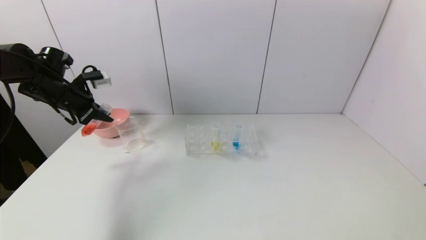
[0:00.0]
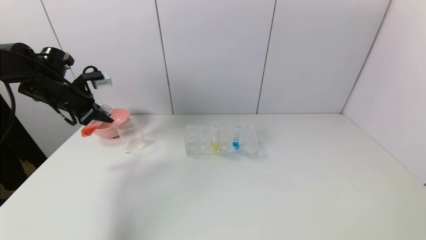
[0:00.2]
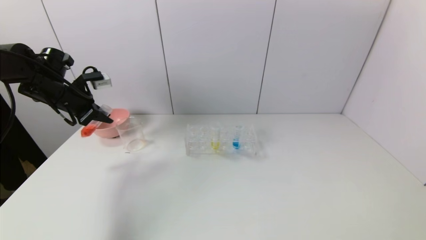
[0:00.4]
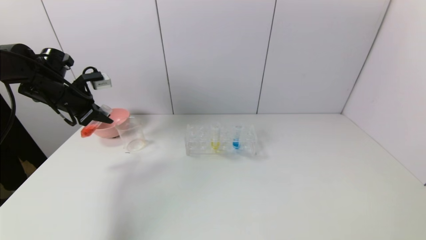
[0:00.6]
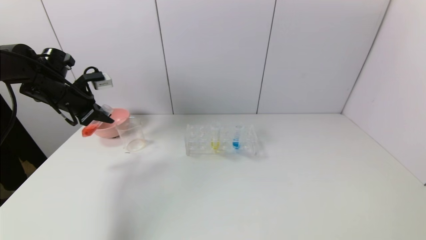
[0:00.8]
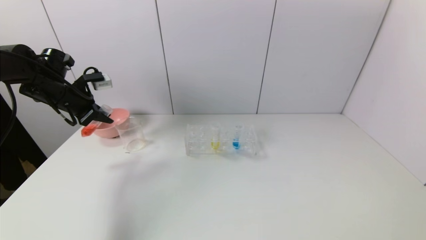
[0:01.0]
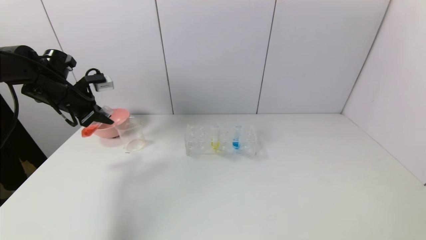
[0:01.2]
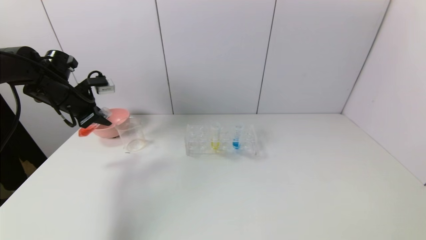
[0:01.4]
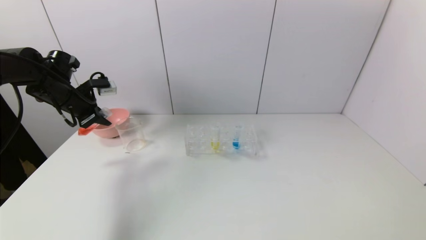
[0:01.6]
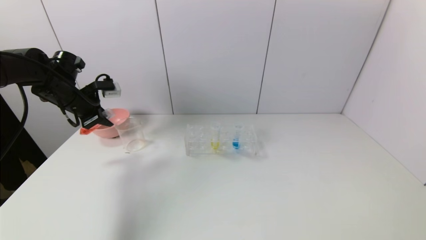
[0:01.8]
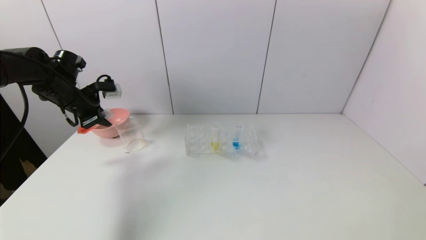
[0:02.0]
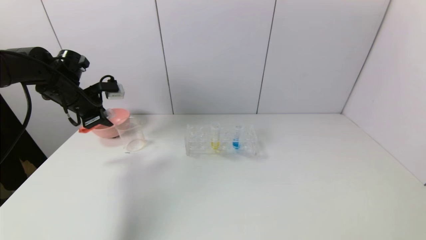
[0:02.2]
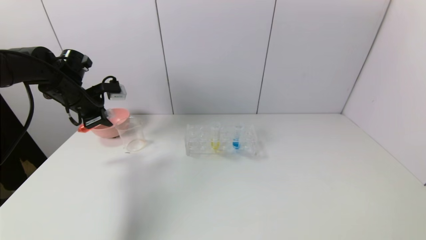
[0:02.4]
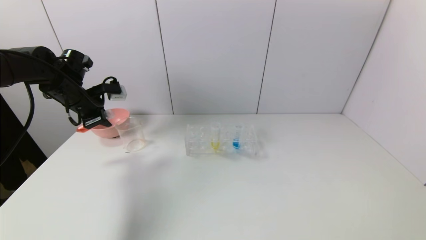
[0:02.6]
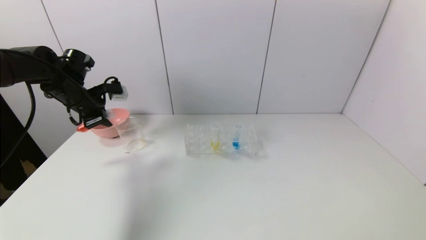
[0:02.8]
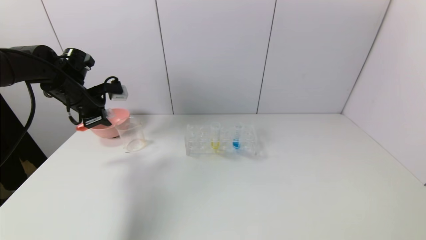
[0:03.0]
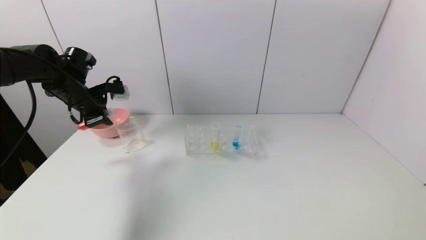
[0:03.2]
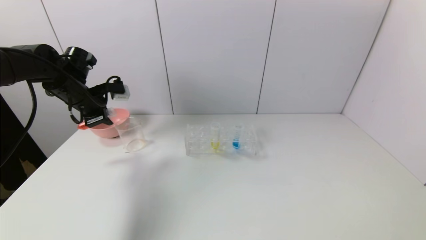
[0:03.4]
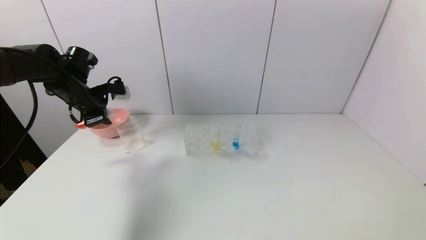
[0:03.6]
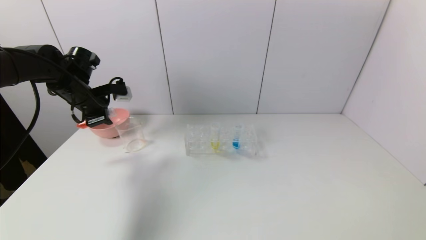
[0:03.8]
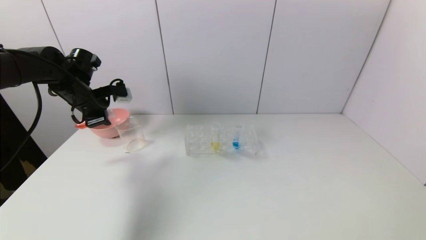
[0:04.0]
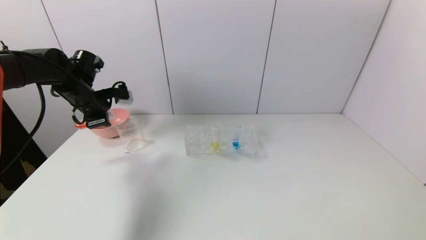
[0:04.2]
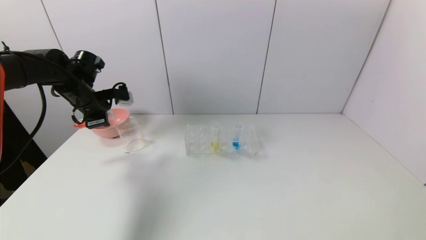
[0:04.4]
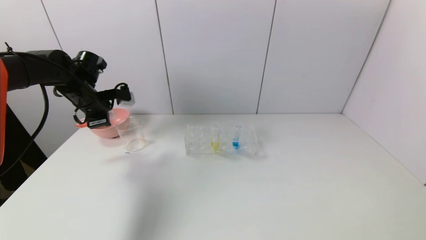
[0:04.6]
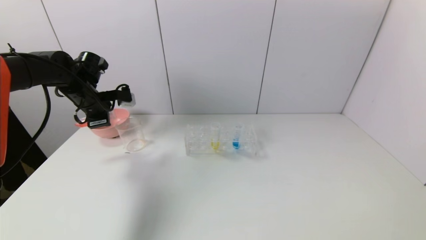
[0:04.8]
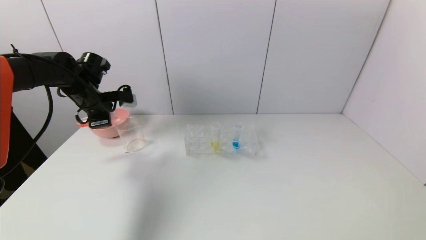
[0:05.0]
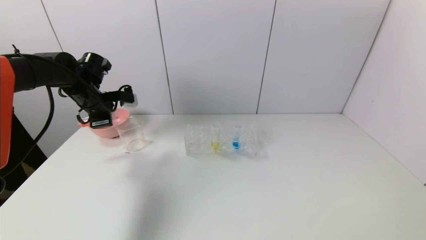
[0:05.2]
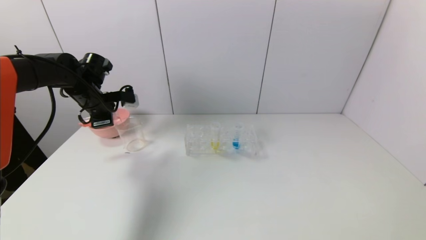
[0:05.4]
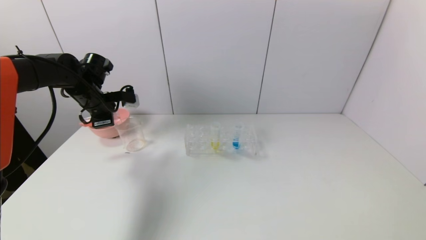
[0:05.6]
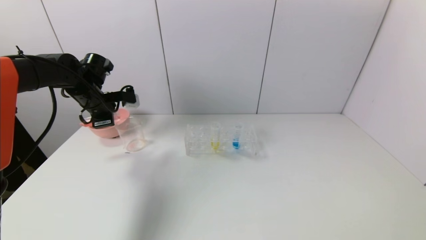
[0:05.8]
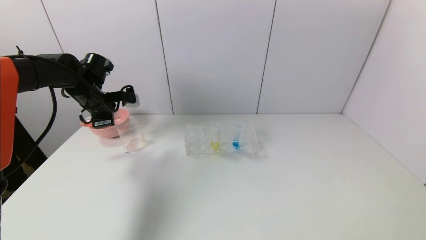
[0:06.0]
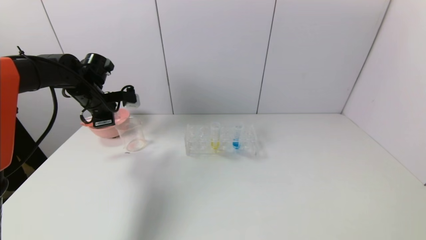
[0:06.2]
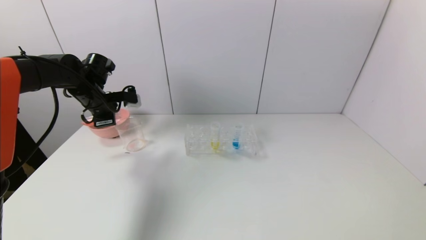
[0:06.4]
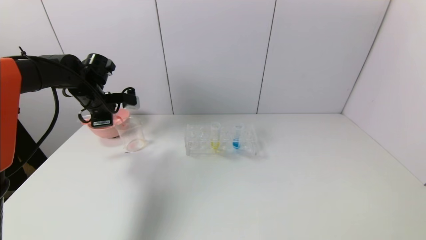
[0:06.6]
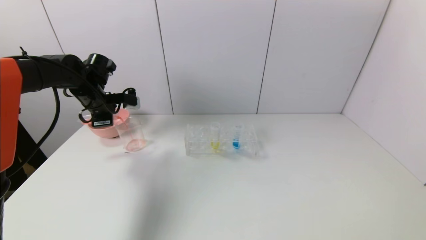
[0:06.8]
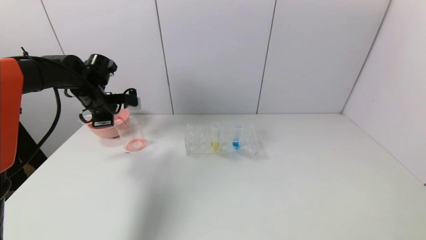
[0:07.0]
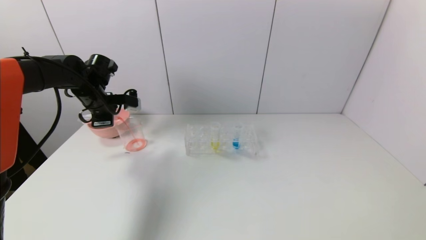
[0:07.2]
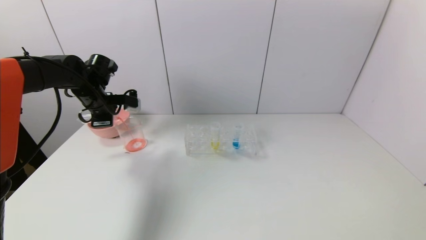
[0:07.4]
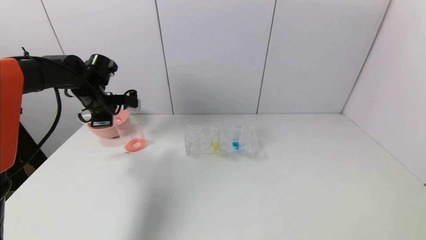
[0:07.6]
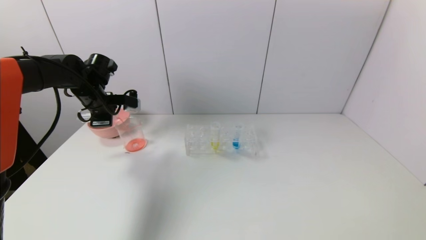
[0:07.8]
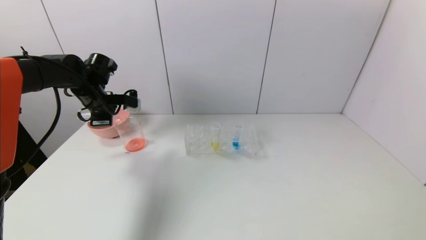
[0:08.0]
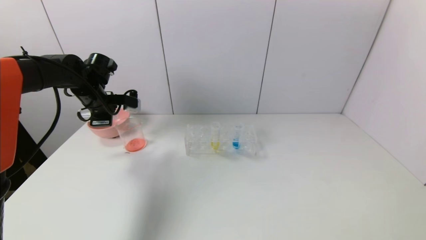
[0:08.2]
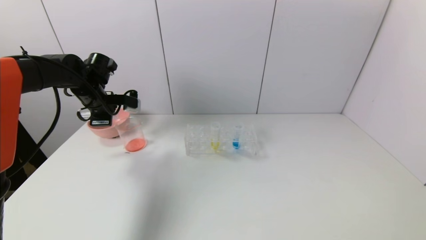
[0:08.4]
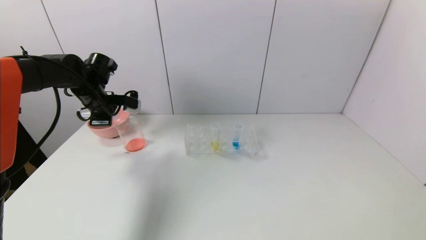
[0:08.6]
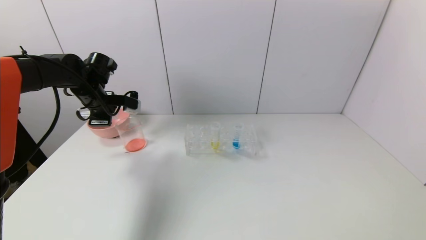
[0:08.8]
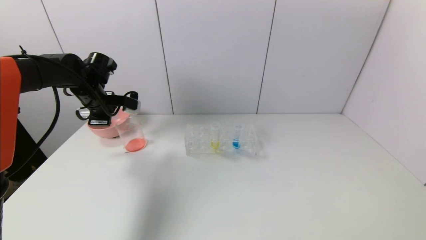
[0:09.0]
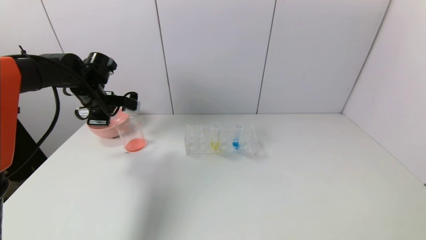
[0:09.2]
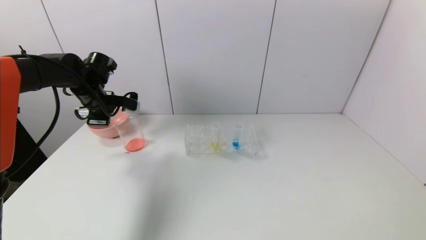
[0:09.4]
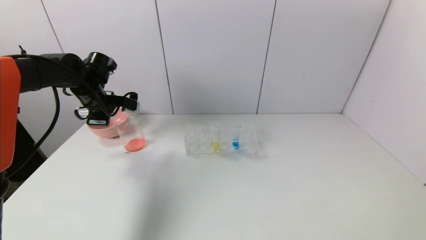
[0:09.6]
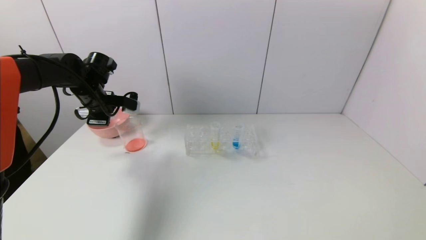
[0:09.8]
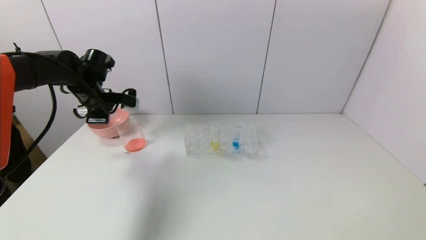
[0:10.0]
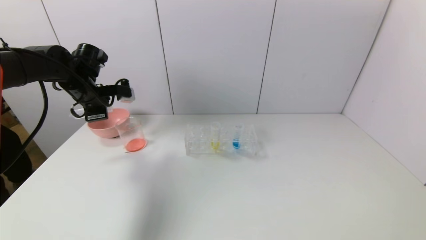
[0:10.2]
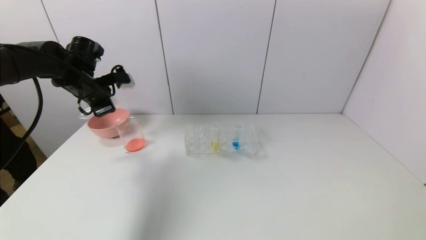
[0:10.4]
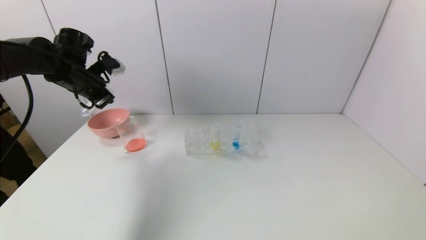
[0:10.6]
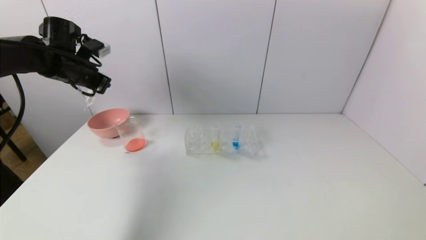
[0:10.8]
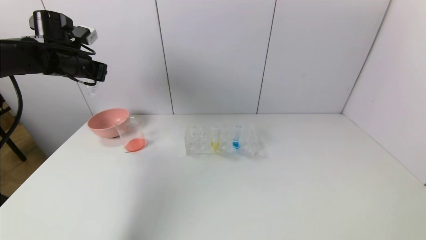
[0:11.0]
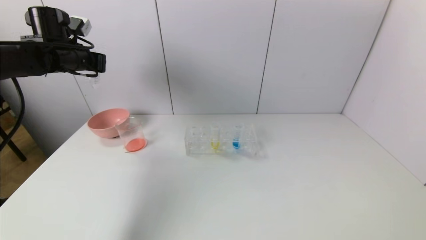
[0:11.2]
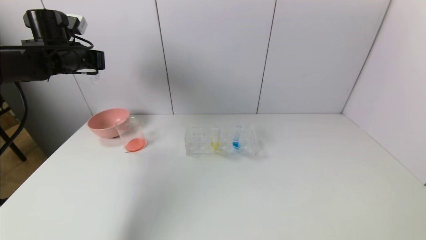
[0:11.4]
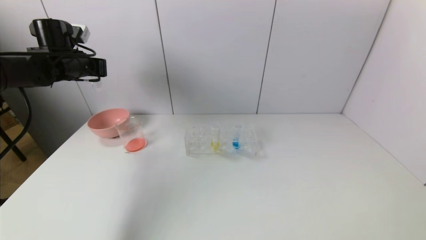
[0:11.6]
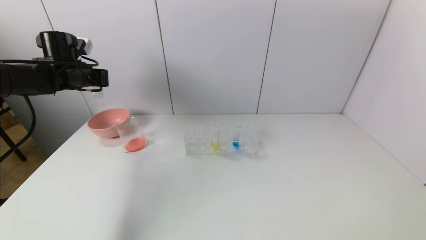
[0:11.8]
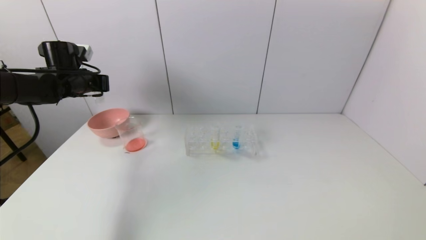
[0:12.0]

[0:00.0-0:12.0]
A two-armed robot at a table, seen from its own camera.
Task of the whole recording: pick up the test tube with yellow pigment and the test tube with red pigment by grippers and pour them into the beaker.
Step, 0:00.0 to 0:08.4: Pour the red reagent into the graduated cylinder with the left gripper.
0:00.0 to 0:01.6: The grippers make only small movements.
0:01.6 to 0:03.0: There are only small adjustments of the grippers.
0:03.0 to 0:06.0: The grippers make only small movements.
0:06.0 to 0:09.0: The grippers move only a little.
0:10.4 to 0:12.0: The left gripper shifts by some 5 cm.

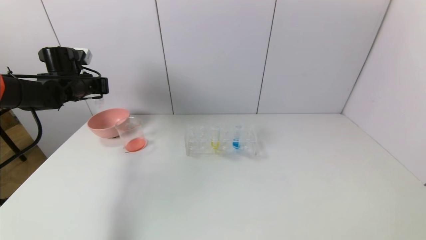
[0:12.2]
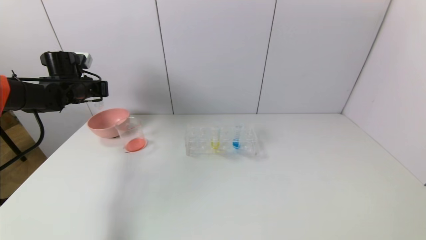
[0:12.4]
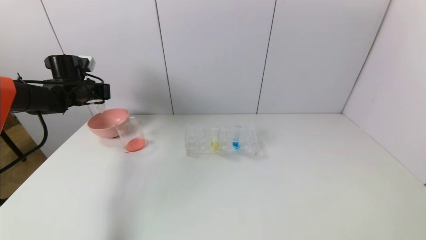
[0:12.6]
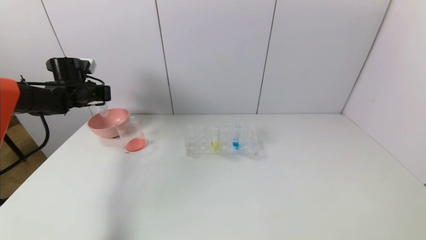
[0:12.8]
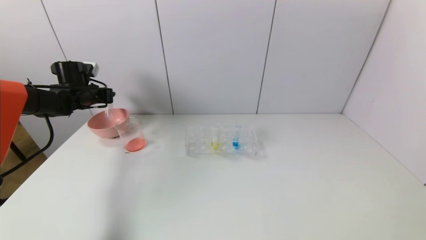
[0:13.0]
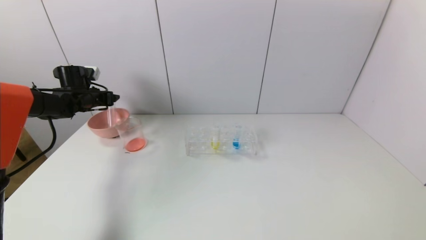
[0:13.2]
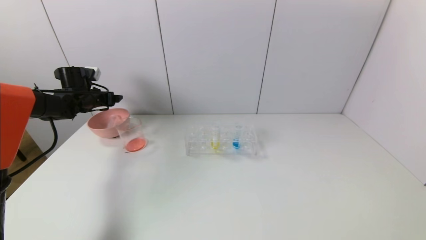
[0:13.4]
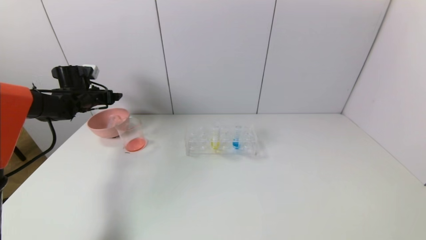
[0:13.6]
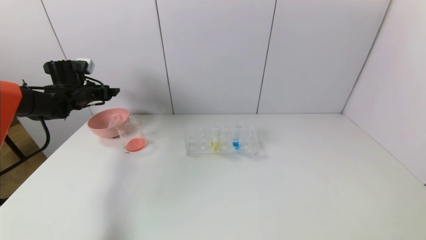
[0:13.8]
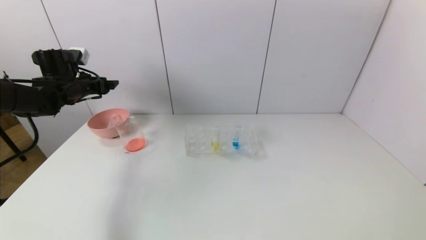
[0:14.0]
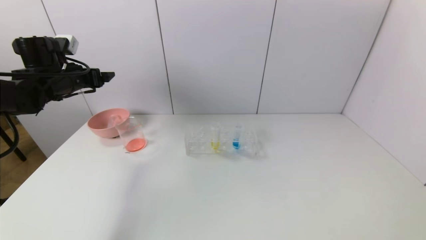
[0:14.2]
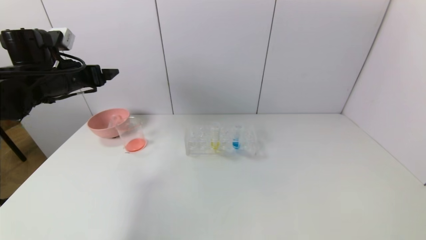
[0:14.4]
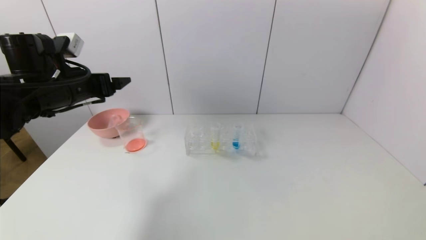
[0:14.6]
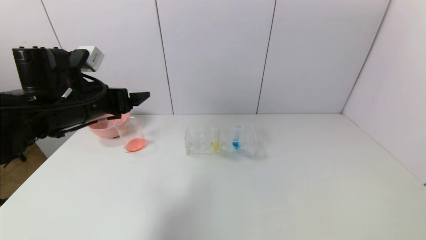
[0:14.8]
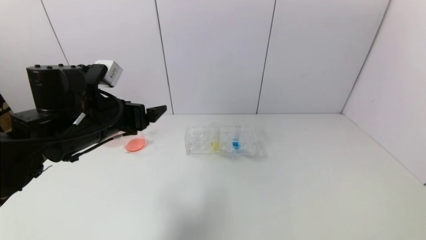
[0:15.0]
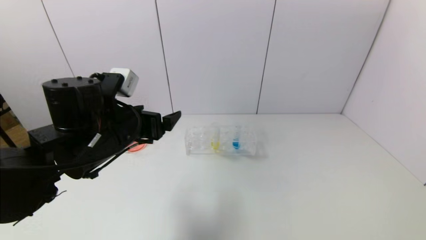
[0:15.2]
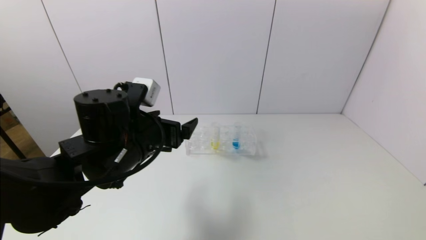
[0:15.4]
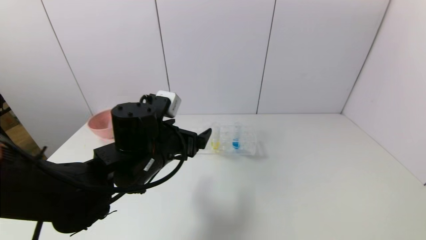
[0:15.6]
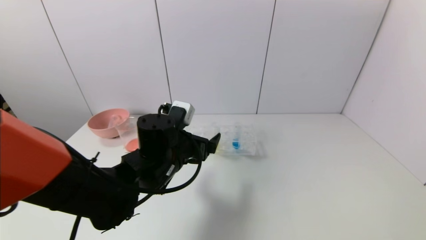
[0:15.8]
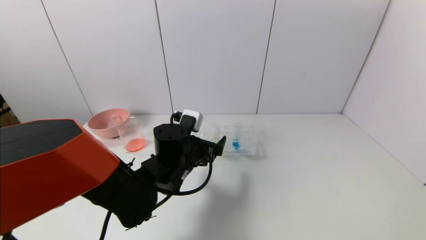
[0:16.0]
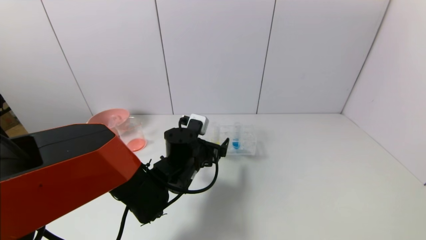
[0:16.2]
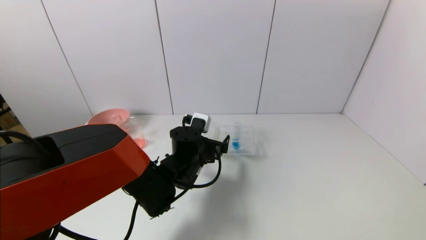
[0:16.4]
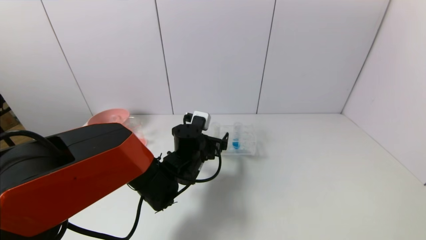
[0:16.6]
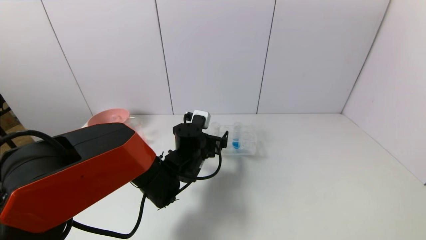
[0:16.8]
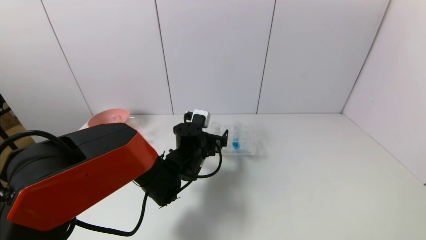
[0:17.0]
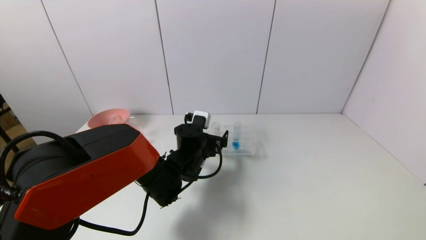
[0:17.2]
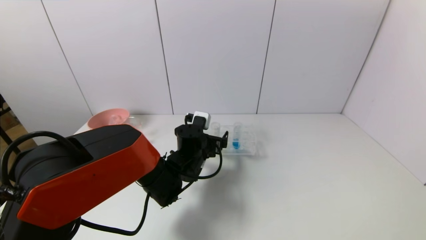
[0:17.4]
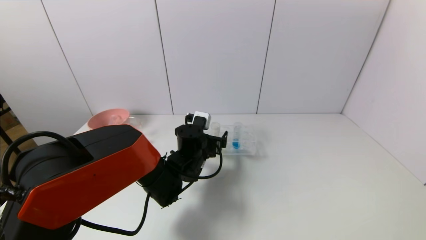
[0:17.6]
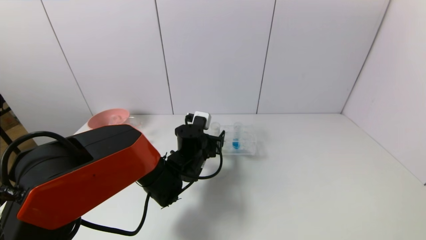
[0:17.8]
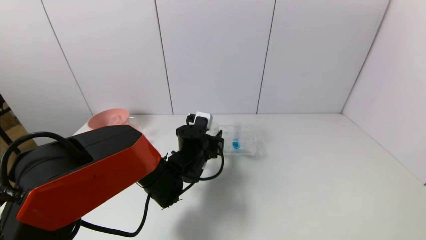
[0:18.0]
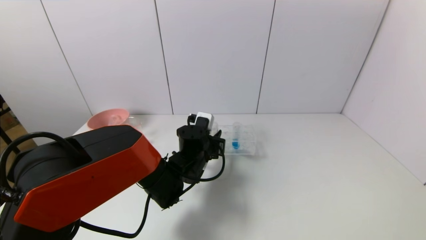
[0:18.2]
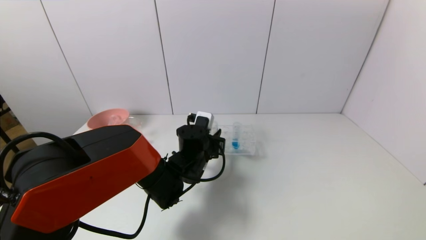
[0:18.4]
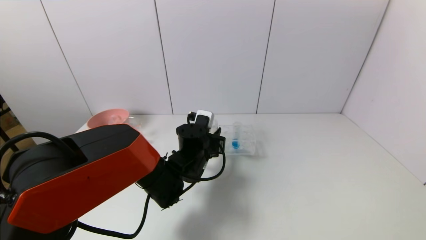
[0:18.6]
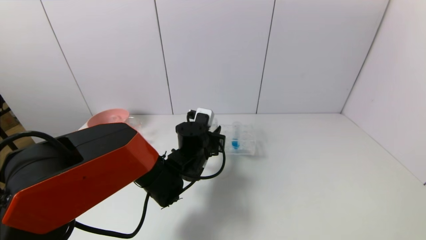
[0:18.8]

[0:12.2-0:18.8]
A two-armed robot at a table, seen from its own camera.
Task of the whole recording: pick up the test tube with yellow pigment and the test tube with red pigment by grippers and pour them into the beaker.
Step, 0:13.6 to 0:18.4: Grasp the yellow reagent with the left gripper.
0:12.2 to 0:13.8: The left gripper opens up.
0:13.8 to 0:15.4: The left gripper heads to the right and backward, covering about 30 cm.
0:15.4 to 0:17.2: The left gripper shifts roughly 20 cm downward, forward and to the right.
0:17.2 to 0:18.8: The left gripper closes up.
